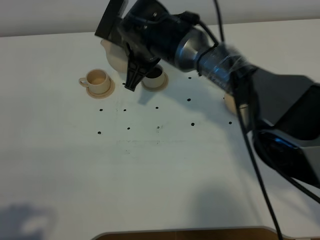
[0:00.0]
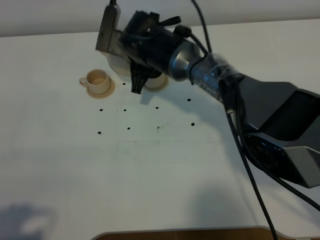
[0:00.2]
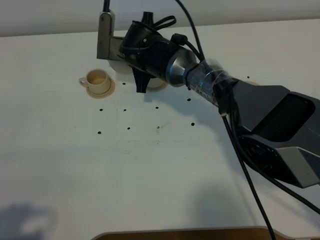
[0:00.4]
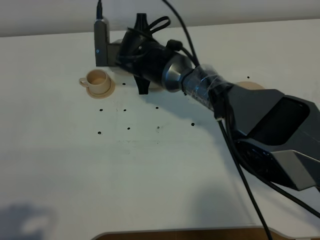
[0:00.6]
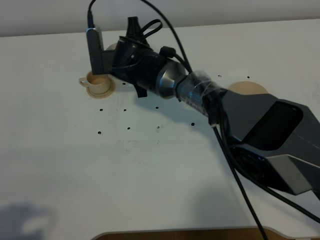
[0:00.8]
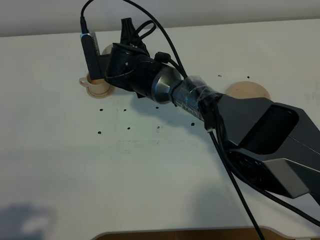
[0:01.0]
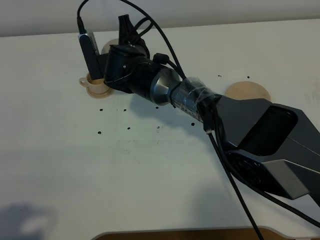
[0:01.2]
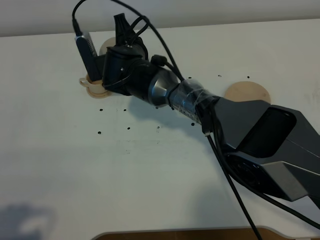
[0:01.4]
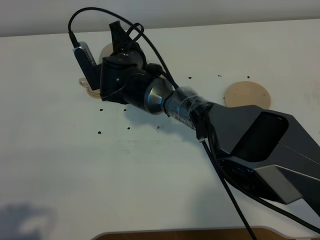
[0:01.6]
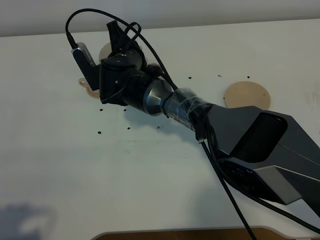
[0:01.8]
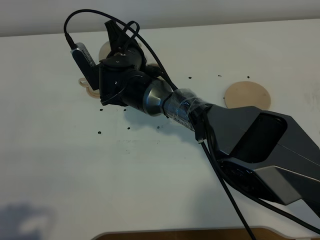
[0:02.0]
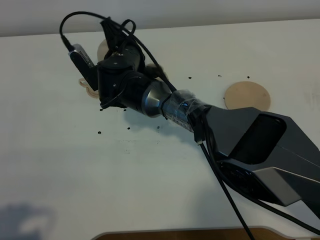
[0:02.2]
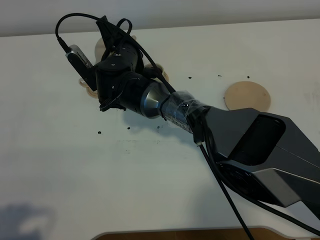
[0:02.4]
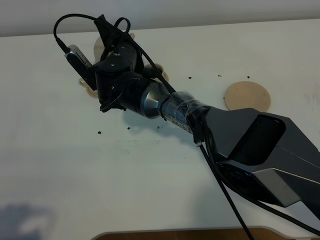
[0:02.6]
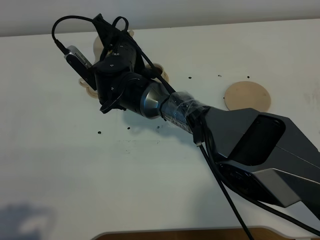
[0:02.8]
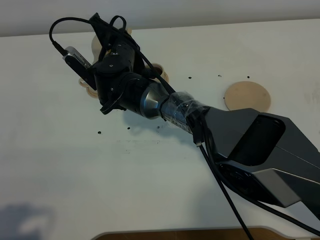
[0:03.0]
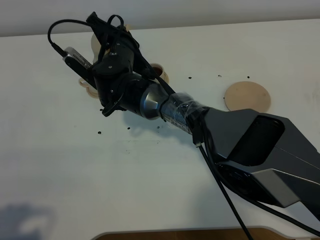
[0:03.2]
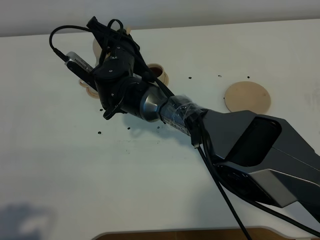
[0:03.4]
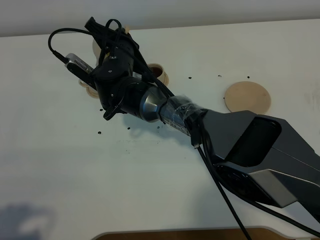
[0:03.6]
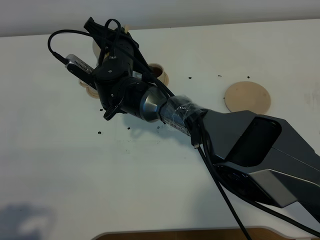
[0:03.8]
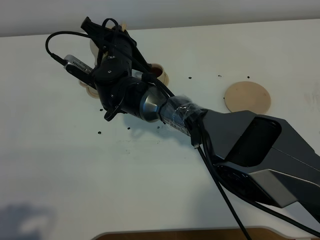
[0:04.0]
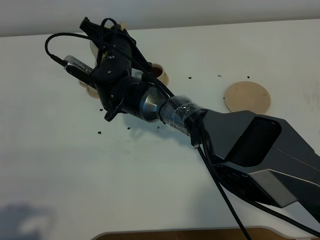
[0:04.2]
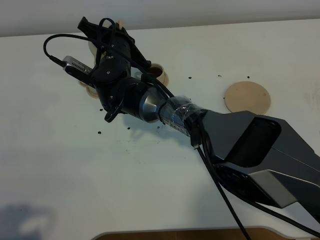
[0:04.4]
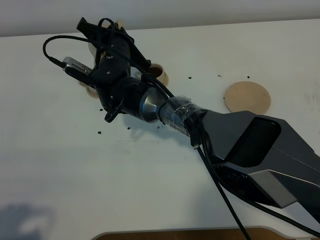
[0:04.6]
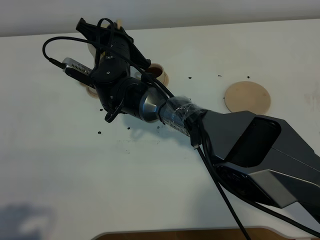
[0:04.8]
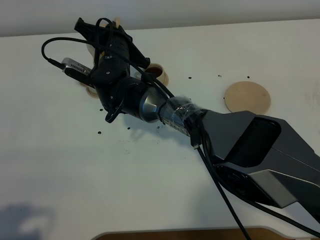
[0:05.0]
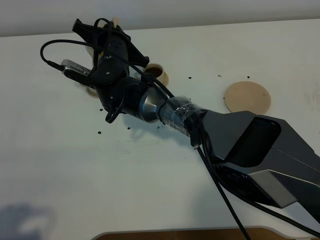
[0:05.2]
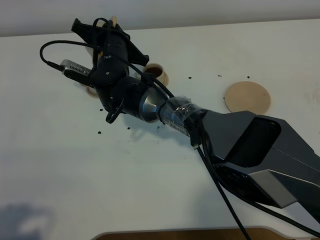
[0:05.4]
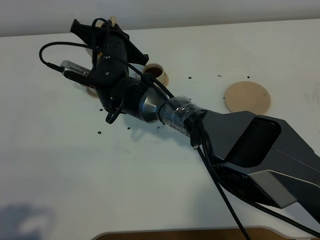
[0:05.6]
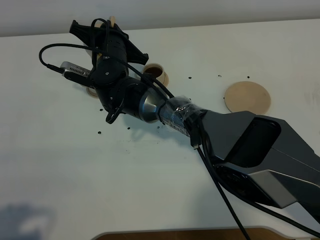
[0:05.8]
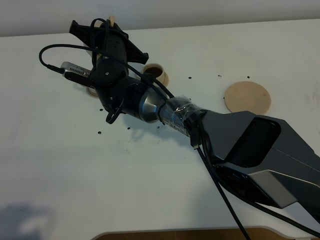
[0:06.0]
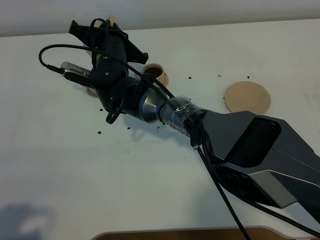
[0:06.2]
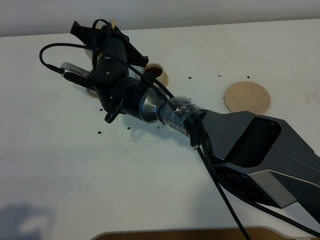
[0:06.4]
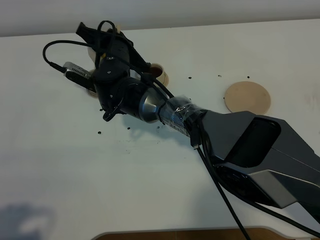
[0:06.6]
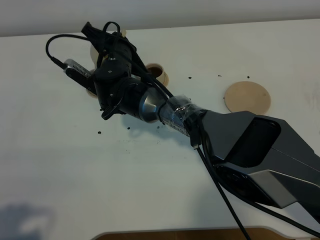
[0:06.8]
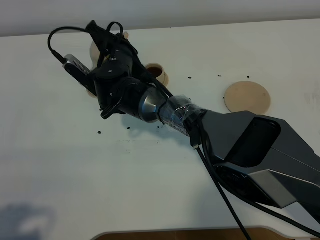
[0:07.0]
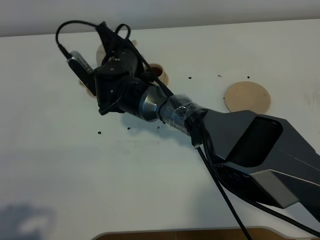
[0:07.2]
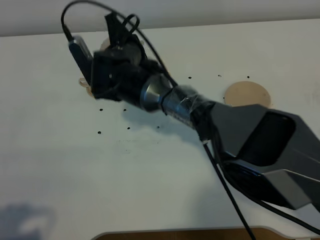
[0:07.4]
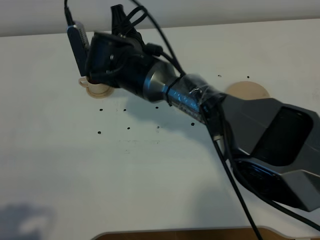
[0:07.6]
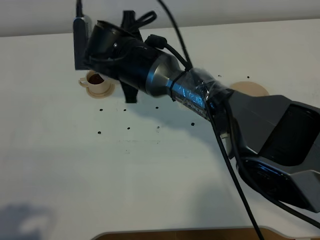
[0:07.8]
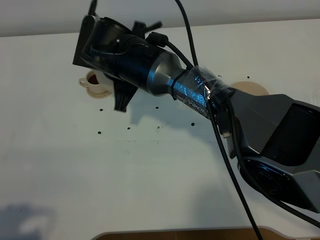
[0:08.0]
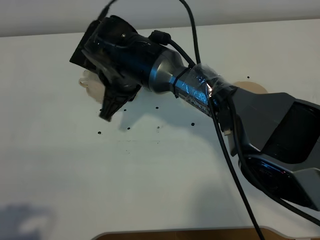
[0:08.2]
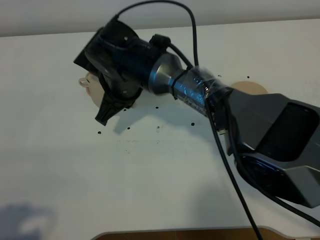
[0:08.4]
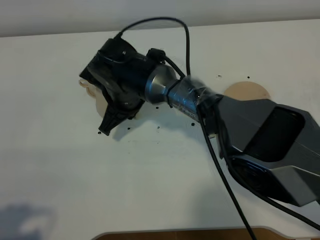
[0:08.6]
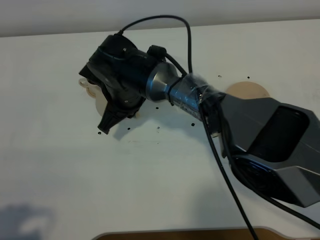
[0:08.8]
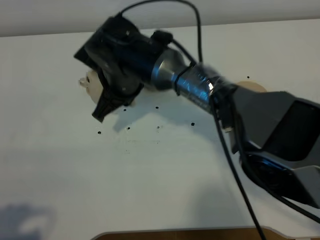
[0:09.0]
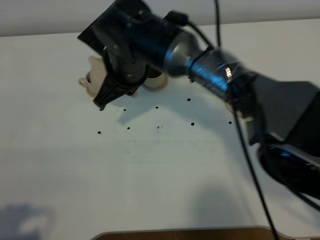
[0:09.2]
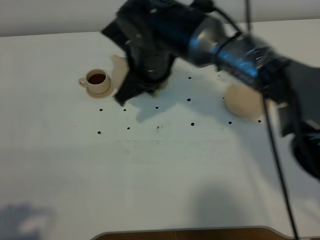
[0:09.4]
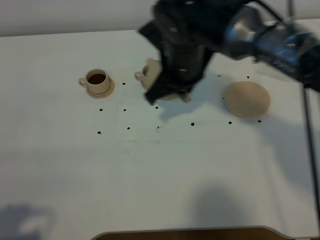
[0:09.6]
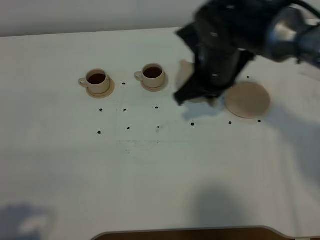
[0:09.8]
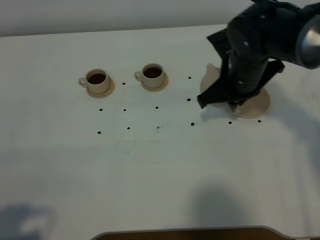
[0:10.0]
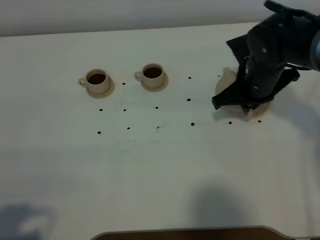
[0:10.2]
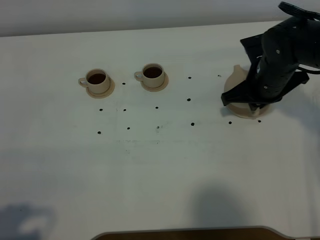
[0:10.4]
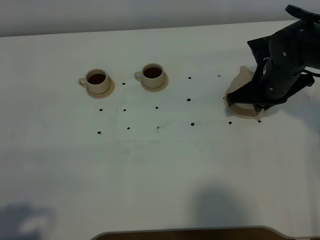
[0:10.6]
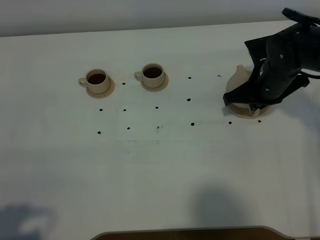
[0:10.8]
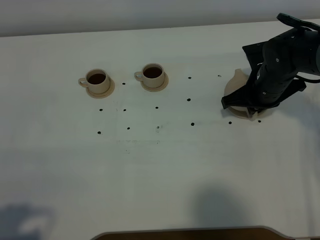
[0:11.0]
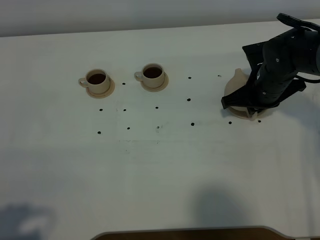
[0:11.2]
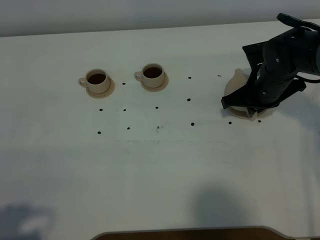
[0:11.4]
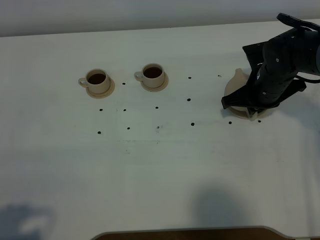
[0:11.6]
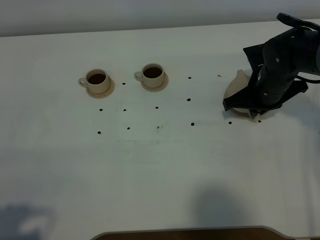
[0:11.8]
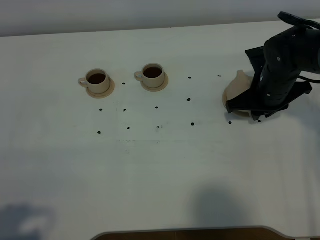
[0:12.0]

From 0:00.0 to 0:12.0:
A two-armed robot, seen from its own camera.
Task of the whole recording: grasp the brown teapot and pour the tea into the two brown teacups one by one, put the brown teapot back in its original place.
Step, from 0:00.0 to 0:07.6: Pour tea into the teacup with the right gripper.
From 0:00.0 to 0:01.6: The right gripper is displaced downward by roughly 5 cm.
From 0:03.0 to 0:04.4: The grippers move only a little.
From 0:04.4 to 0:06.0: The grippers stay close to where they were, moving slightly.
From 0:06.0 to 0:07.6: The right gripper shifts by roughly 5 cm.
From 0:09.0 to 0:10.4: The right gripper moves to the right, some 25 cm.
From 0:10.4 to 0:12.0: The right gripper opens its fingers.

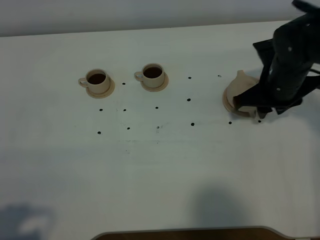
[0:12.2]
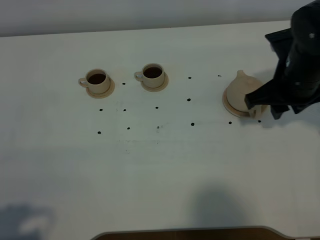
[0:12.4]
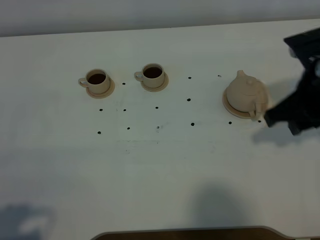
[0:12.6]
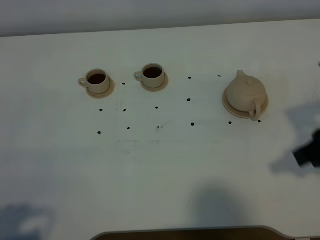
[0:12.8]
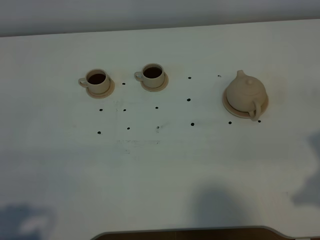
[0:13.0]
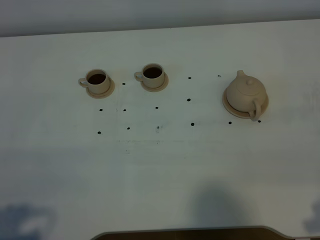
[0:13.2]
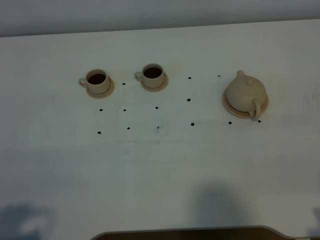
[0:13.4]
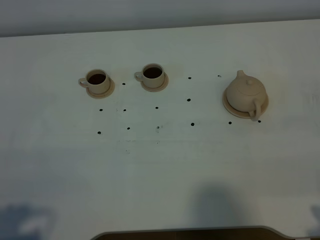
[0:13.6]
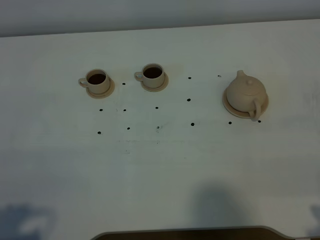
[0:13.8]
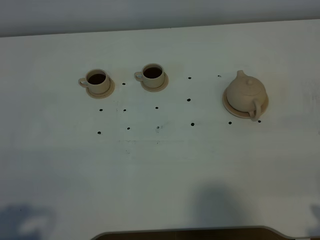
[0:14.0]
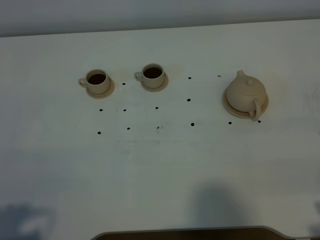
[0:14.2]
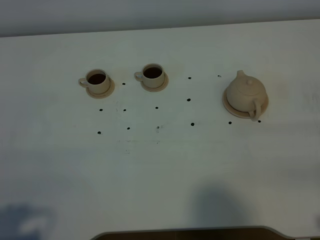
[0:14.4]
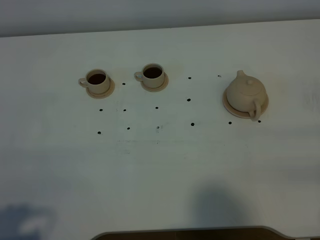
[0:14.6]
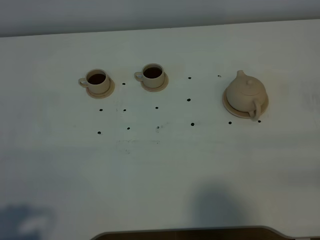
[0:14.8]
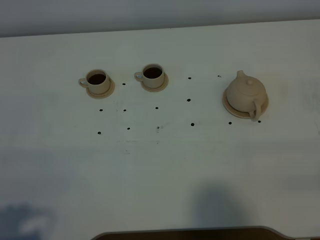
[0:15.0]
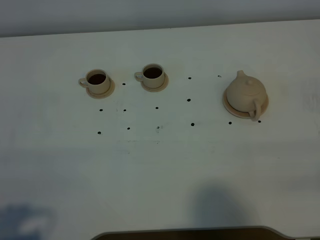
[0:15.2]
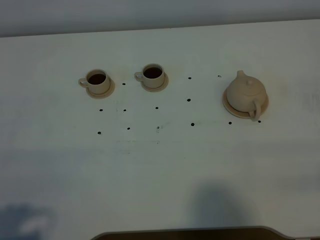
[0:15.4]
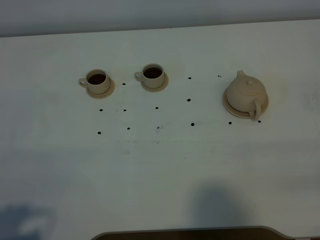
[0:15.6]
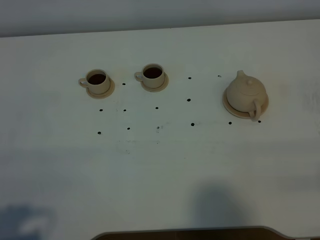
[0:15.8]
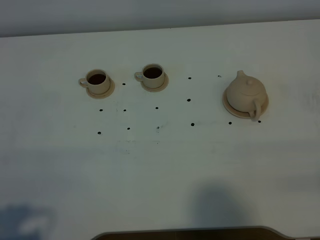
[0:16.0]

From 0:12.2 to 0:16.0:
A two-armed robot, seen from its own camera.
Task of the whole recording: grasp the brown teapot and pour the tea into the two brown teacups one by one, put the brown teapot back in its original place.
From 0:12.2 to 0:13.4: The right gripper goes approximately 30 cm backward.

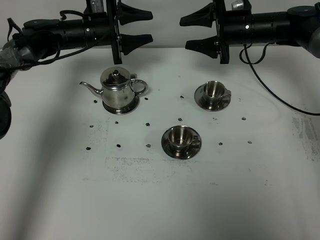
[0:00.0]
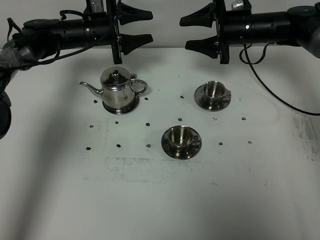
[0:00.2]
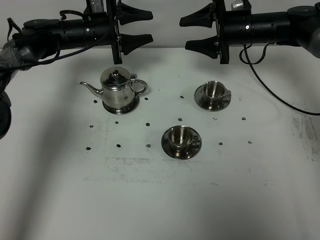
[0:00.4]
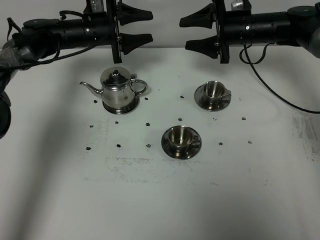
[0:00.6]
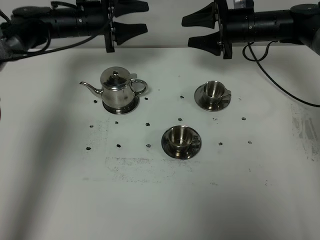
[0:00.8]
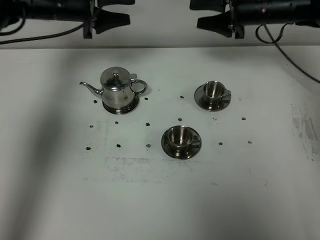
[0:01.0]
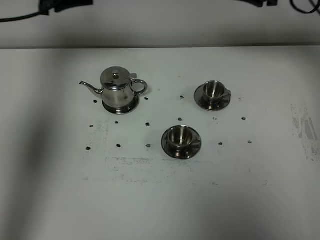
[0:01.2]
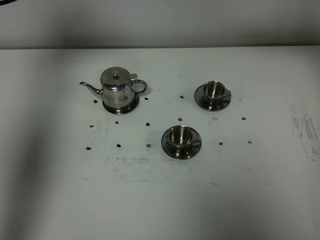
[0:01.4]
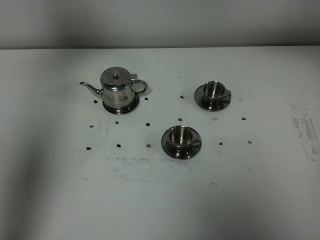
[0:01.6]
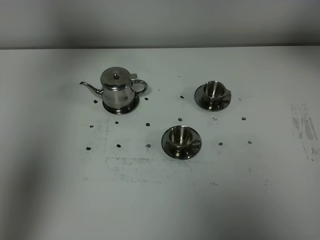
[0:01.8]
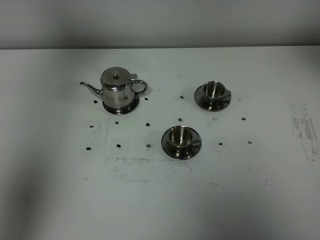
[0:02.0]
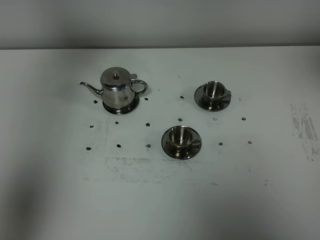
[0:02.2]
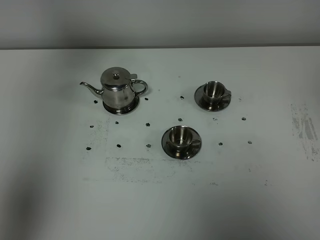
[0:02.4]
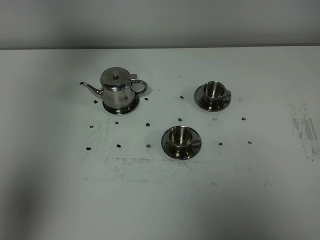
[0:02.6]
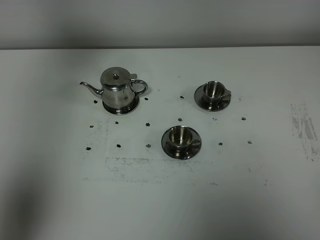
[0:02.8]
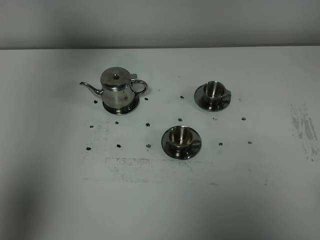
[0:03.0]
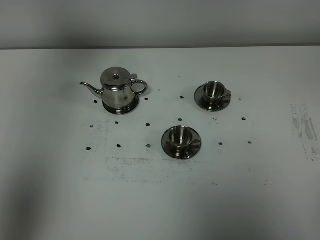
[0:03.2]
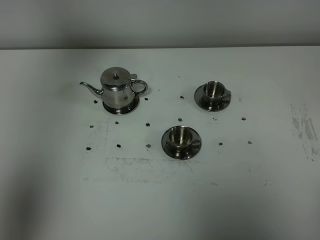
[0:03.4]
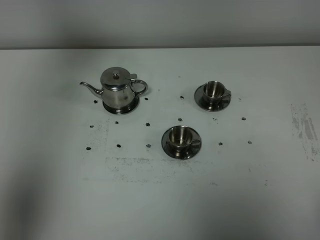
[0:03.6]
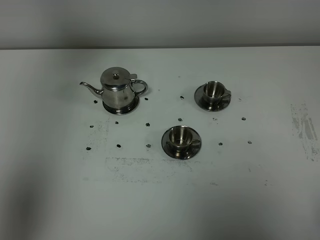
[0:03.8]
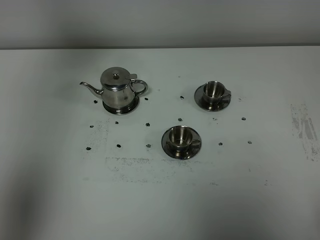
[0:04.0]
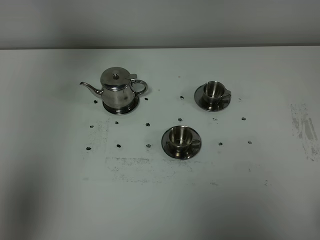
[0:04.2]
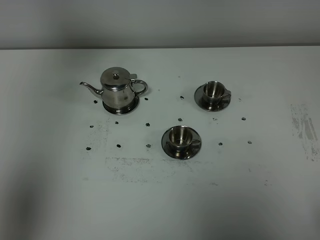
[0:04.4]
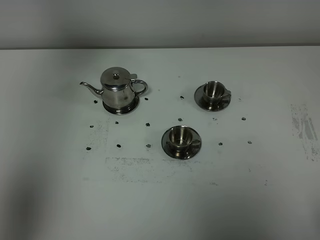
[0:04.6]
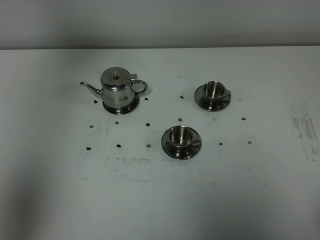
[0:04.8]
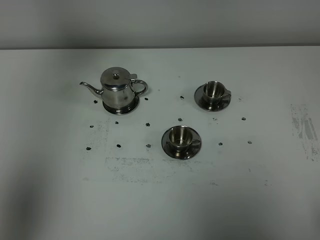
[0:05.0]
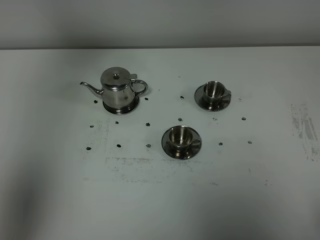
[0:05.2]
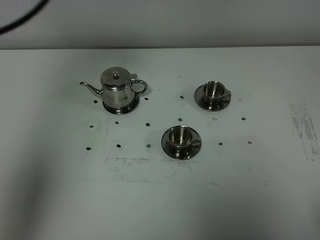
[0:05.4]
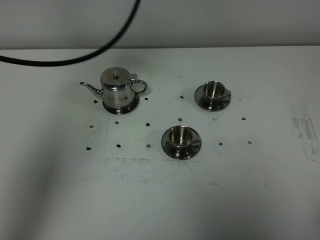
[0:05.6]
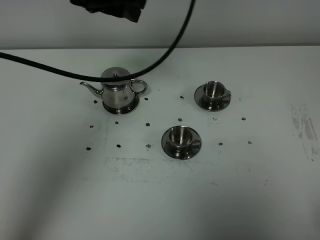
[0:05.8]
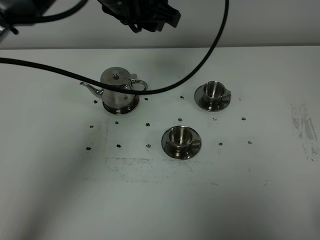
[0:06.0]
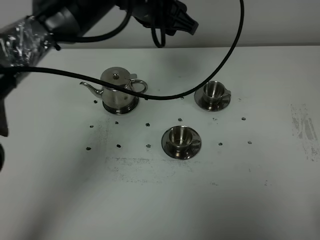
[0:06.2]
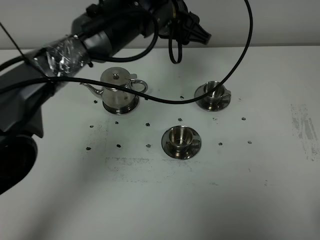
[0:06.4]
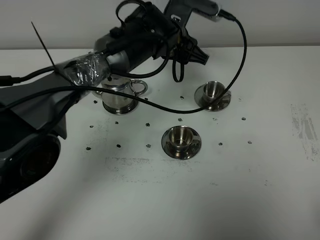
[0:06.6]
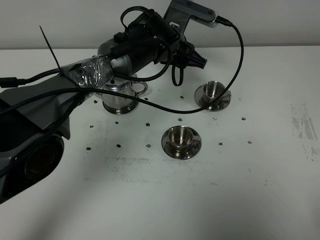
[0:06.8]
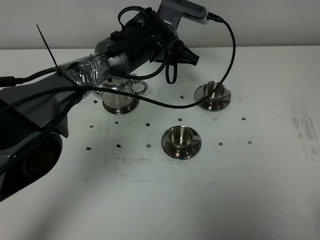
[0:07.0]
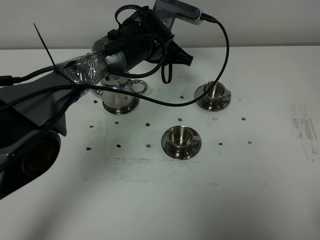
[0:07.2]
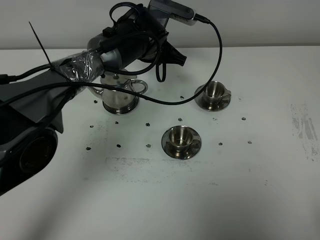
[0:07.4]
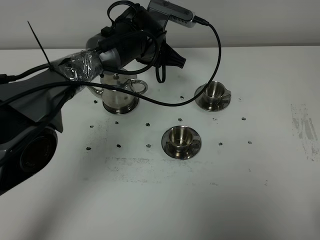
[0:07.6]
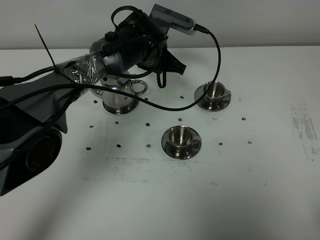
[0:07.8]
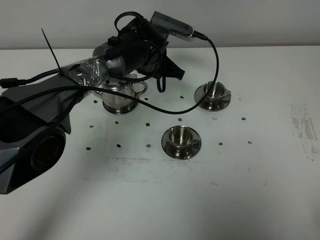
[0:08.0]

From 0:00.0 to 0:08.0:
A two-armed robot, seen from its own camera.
Task of the whole recording: grasp the stainless steel teapot and pour the tea into the two stainless steel teacups one by one, put the stainless steel teapot back in its original place.
From 0:00.0 to 0:01.6: Both grippers travel together upward and backward, approximately 30 cm.
From 0:01.6 to 0:03.2: The right gripper is displaced backward by about 40 cm.
From 0:04.8 to 0:06.4: The left gripper heads to the right, downward and forward, covering roughly 40 cm.
From 0:06.4 to 0:08.0: The left gripper shifts approximately 10 cm downward, and closes its fingers.
